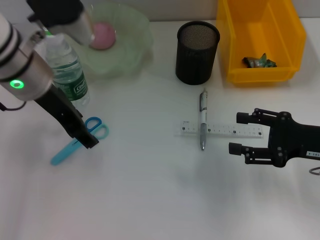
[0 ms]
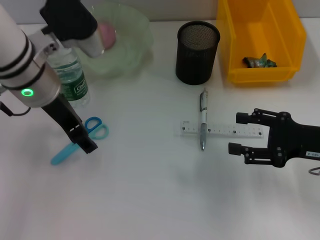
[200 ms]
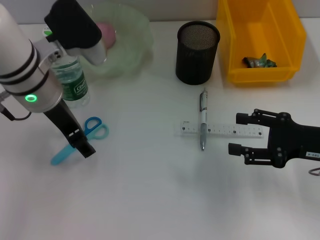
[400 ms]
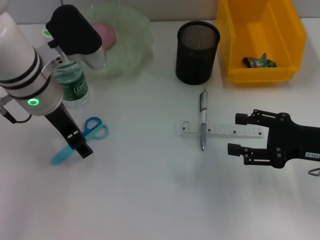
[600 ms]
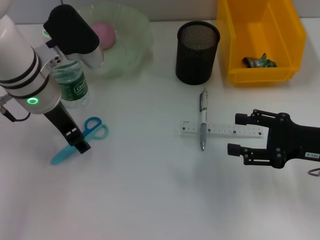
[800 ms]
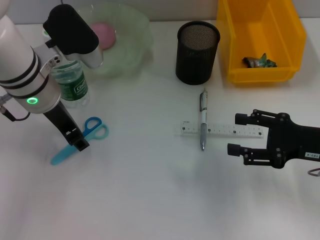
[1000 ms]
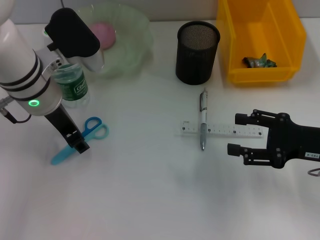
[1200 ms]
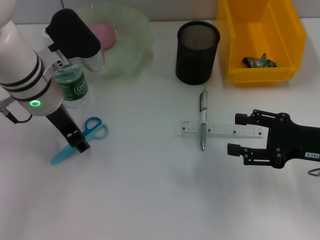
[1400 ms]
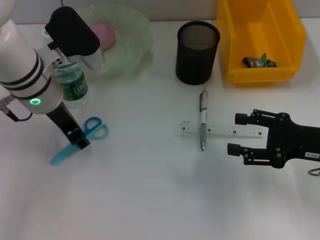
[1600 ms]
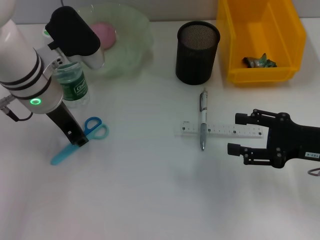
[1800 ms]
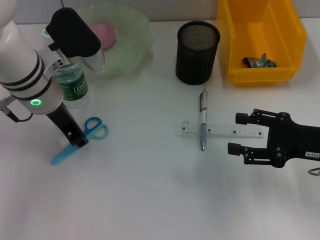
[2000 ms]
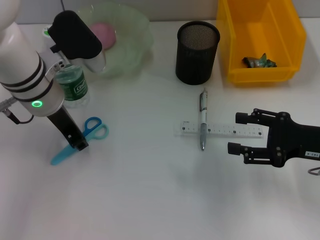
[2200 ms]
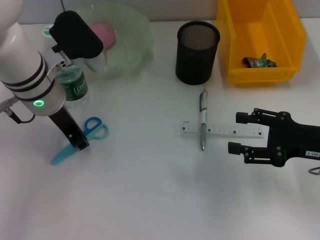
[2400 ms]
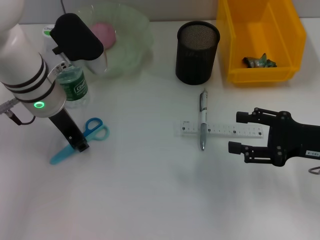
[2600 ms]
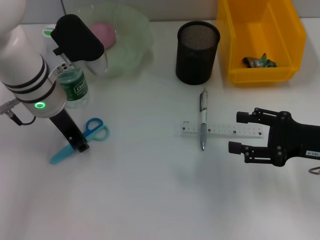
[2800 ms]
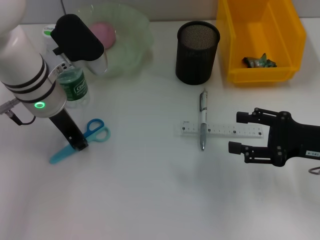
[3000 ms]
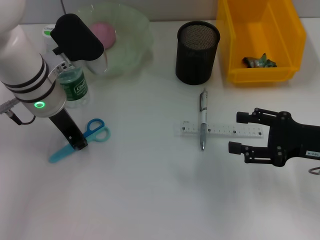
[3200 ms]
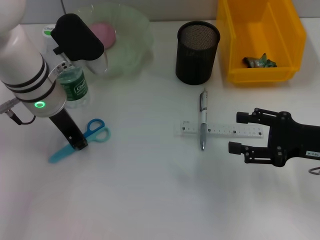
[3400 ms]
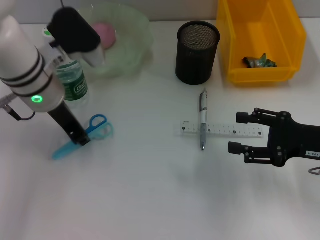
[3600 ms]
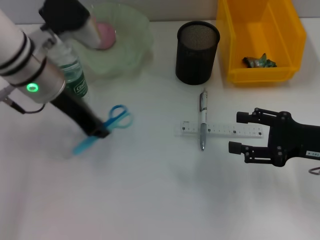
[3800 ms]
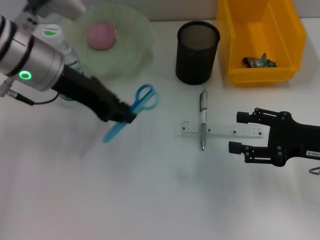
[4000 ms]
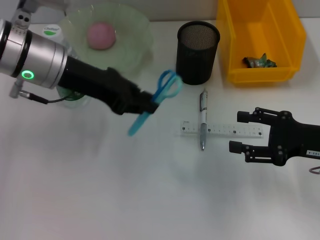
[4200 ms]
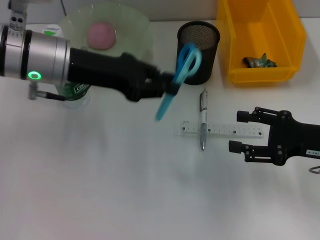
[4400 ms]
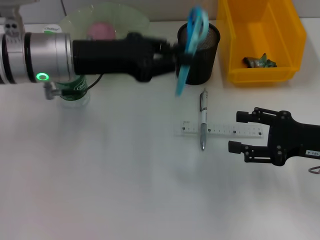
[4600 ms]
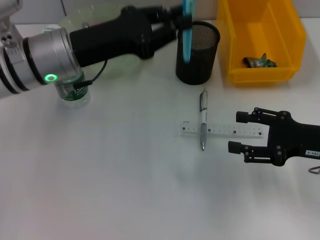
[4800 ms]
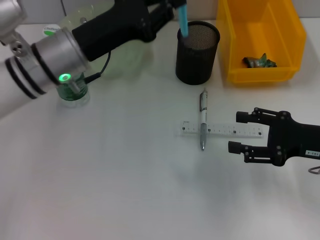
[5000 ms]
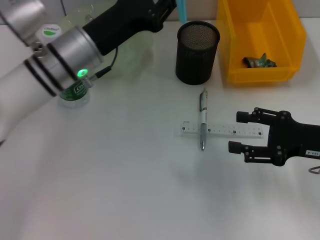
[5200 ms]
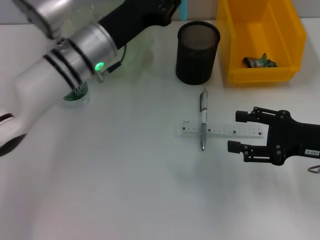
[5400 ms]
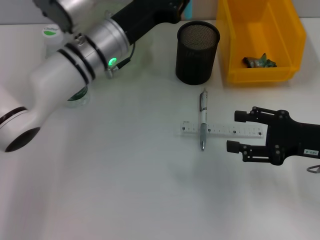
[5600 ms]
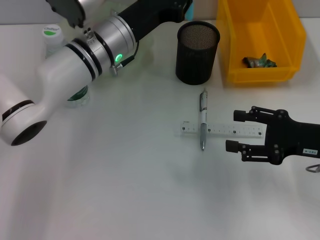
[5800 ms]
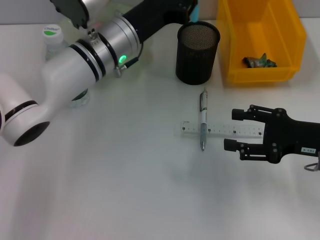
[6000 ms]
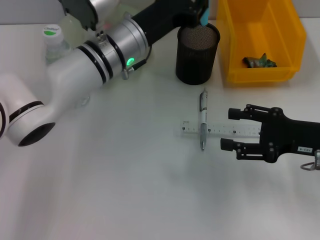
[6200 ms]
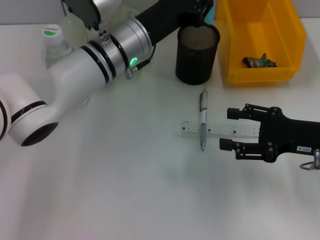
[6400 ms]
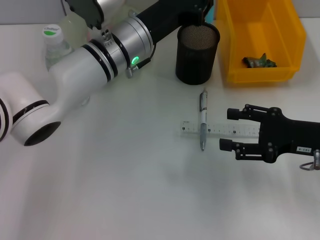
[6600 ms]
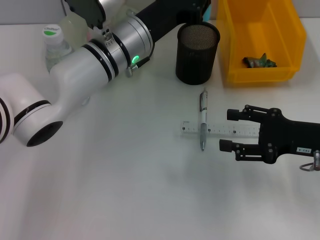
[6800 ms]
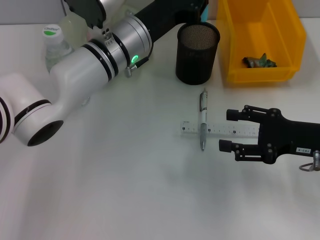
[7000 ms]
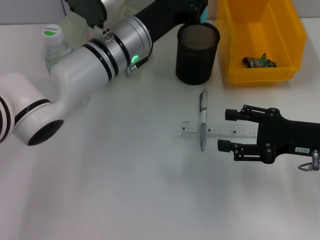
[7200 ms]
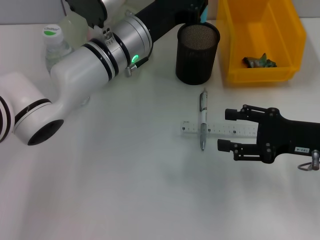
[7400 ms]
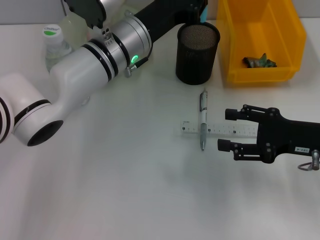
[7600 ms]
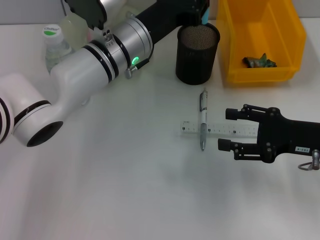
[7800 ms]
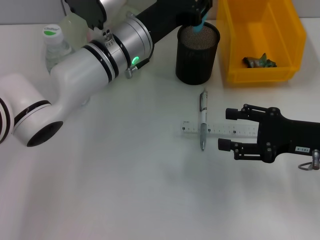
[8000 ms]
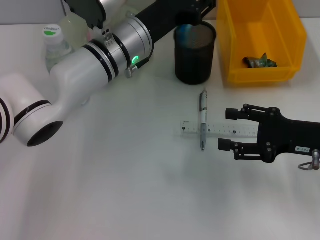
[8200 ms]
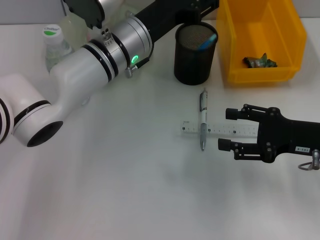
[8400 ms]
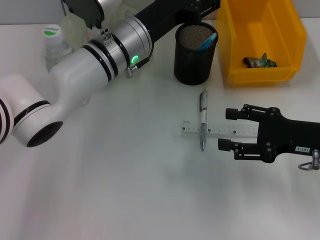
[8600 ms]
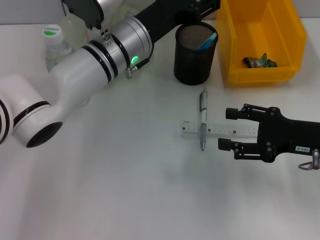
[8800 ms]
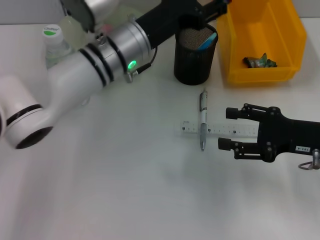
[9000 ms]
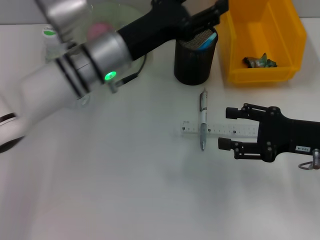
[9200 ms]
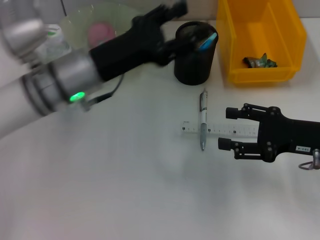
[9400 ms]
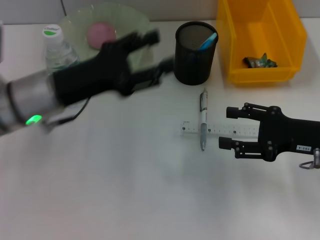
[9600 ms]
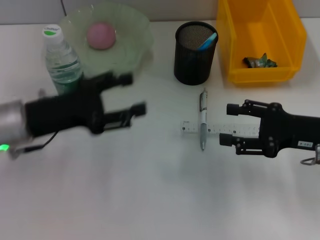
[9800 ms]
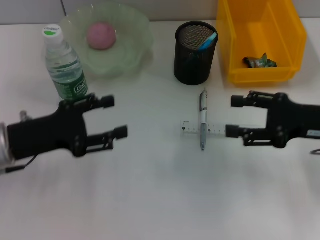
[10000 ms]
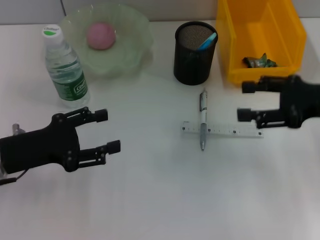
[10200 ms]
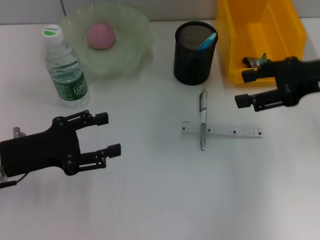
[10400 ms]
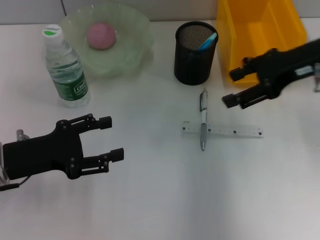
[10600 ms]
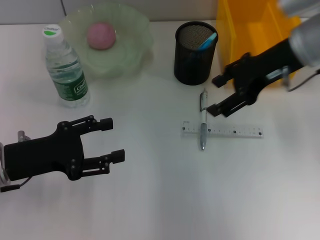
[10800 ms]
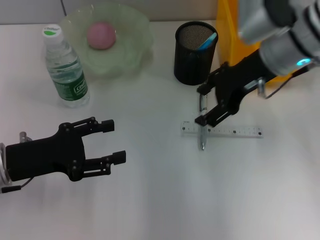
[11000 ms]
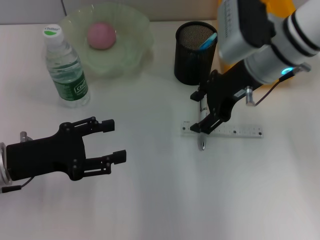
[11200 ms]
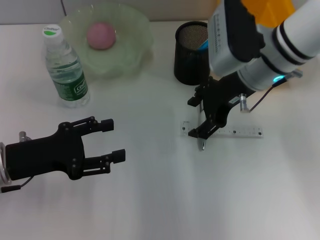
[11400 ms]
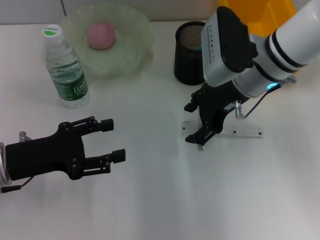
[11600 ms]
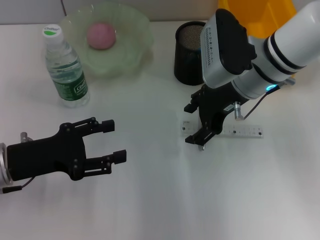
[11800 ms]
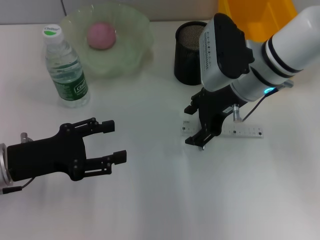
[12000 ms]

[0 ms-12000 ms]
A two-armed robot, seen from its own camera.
Step, 0 ms to 3200 ms: Grab the blue scissors with the left hand.
Step, 3600 ms to 8200 ms: Place the blue scissors into the pen holder with the left hand.
0 ms to 1600 ms: The left gripper shifts roughly 5 cm downward, and closes its fingers.
1600 ms to 3000 ms: Neither gripper changes place.
4400 ms to 6000 ms: The left gripper goes some 10 cm to the right and downward.
6000 ms to 7600 ms: The grippers move only a little.
7600 ms to 9000 ms: The left gripper opens up.
9000 ms to 10400 ms: The right gripper moves upward and forward, approximately 10 cm. Meanwhile the left gripper shifts about 25 cm to the left and backward.
10400 ms to 12000 ms: The right gripper heads to the left, covering roughly 15 cm.

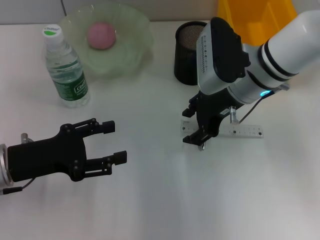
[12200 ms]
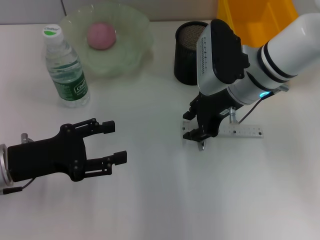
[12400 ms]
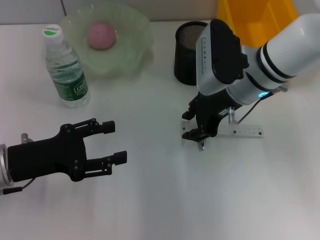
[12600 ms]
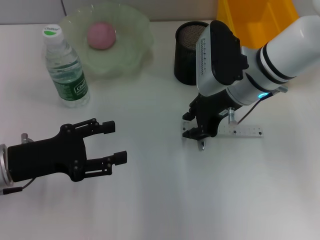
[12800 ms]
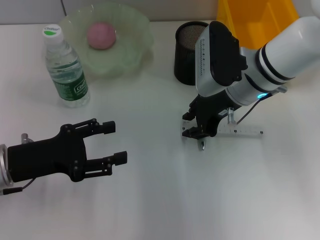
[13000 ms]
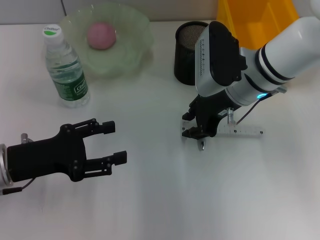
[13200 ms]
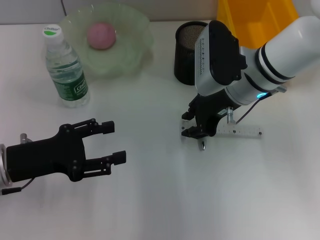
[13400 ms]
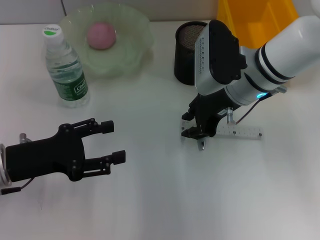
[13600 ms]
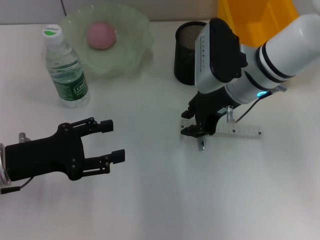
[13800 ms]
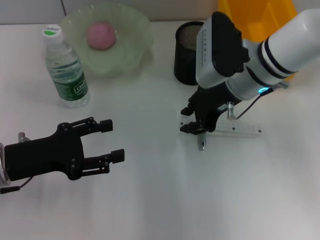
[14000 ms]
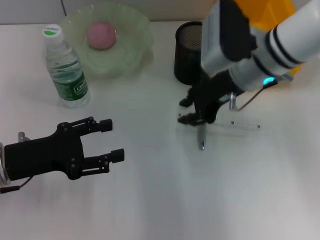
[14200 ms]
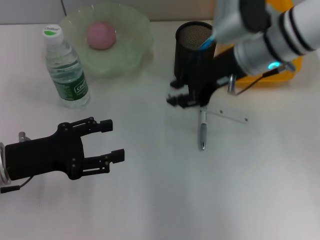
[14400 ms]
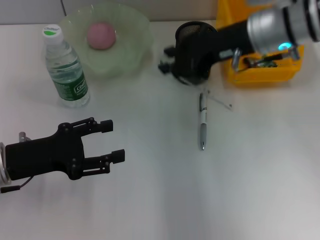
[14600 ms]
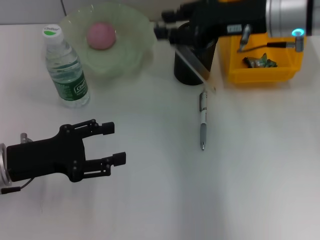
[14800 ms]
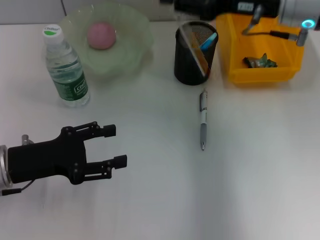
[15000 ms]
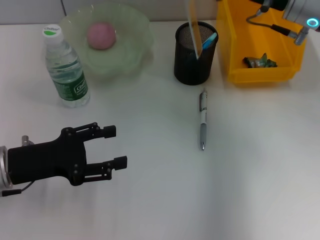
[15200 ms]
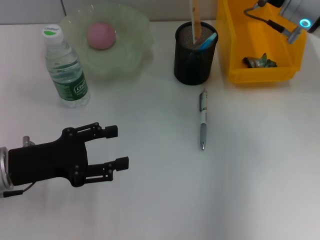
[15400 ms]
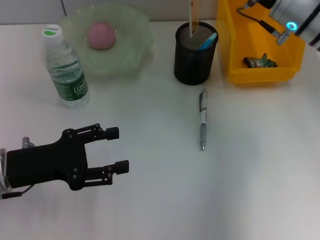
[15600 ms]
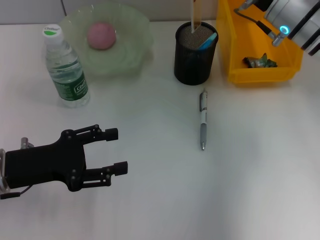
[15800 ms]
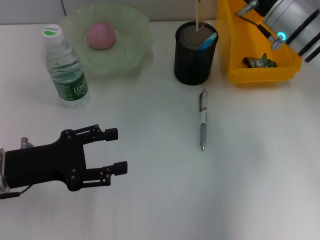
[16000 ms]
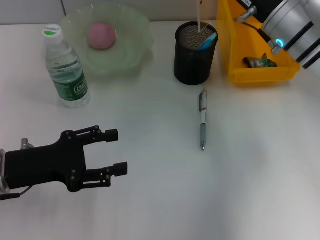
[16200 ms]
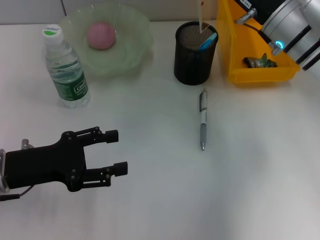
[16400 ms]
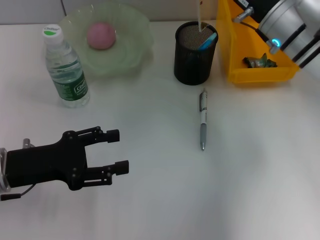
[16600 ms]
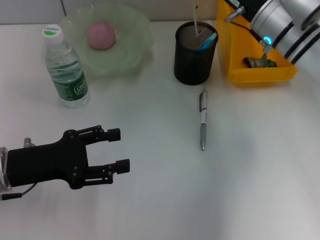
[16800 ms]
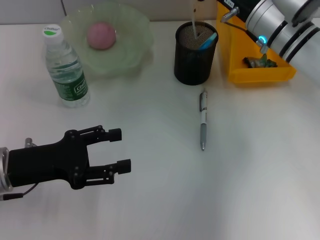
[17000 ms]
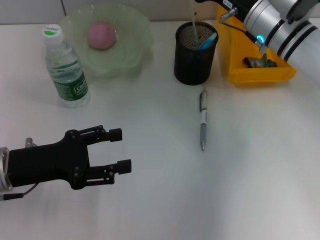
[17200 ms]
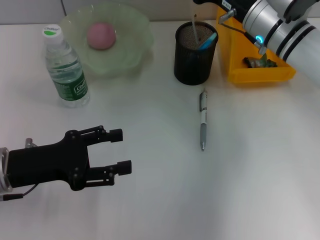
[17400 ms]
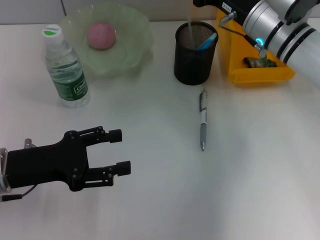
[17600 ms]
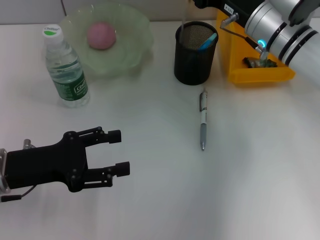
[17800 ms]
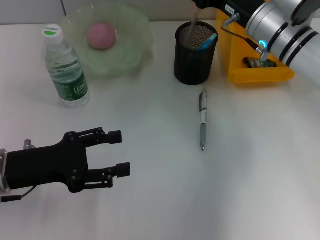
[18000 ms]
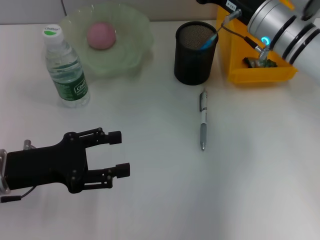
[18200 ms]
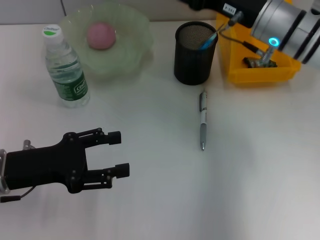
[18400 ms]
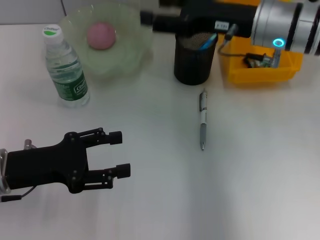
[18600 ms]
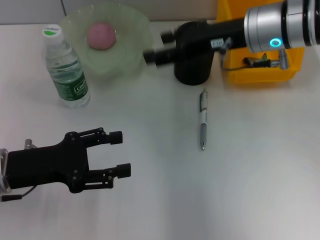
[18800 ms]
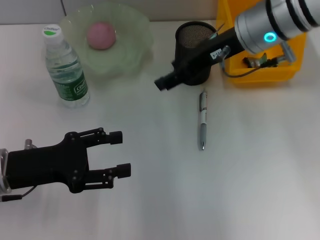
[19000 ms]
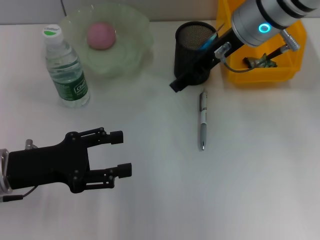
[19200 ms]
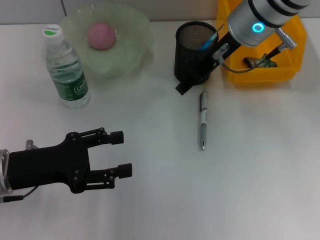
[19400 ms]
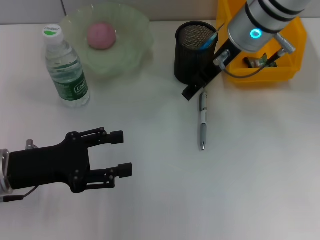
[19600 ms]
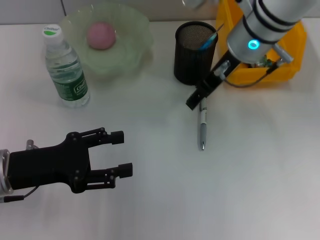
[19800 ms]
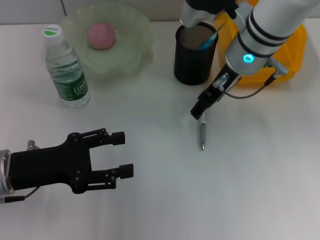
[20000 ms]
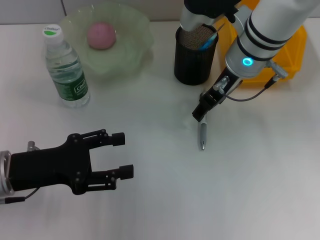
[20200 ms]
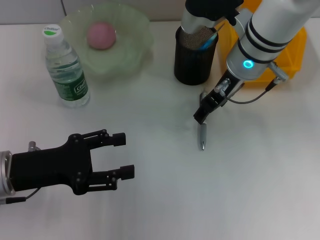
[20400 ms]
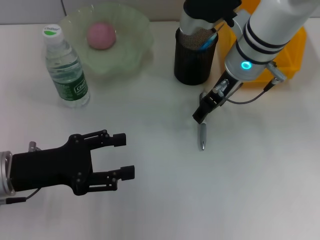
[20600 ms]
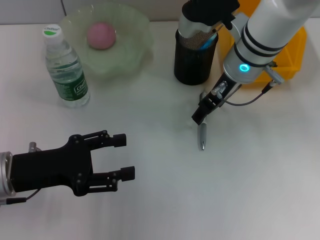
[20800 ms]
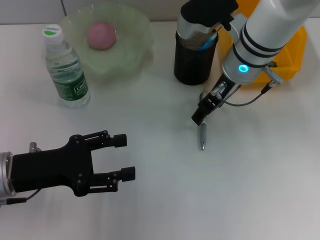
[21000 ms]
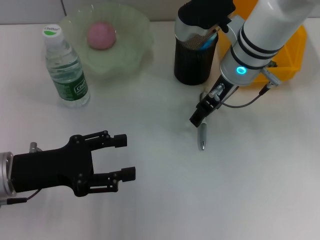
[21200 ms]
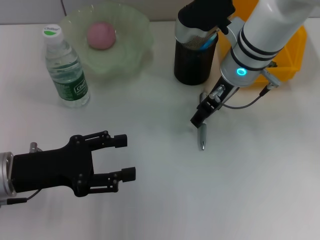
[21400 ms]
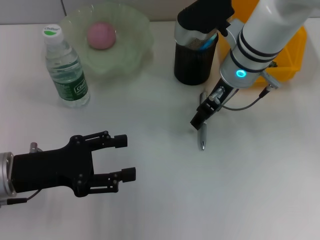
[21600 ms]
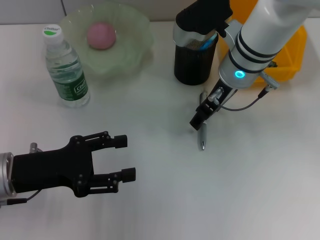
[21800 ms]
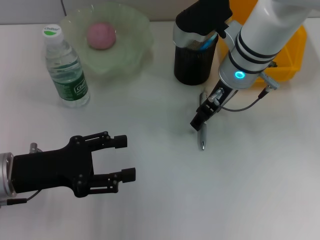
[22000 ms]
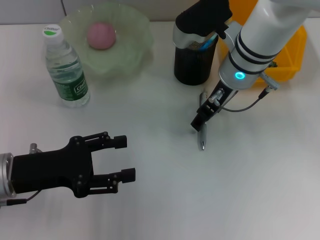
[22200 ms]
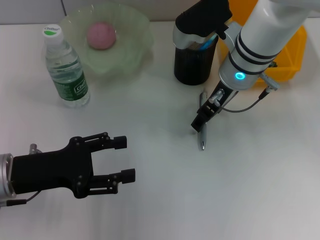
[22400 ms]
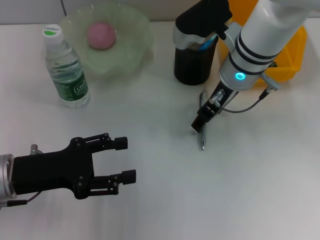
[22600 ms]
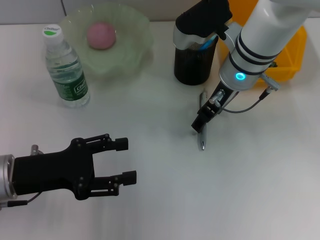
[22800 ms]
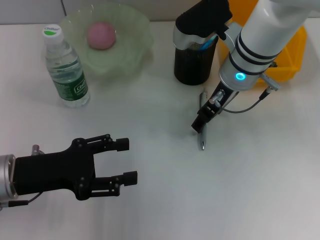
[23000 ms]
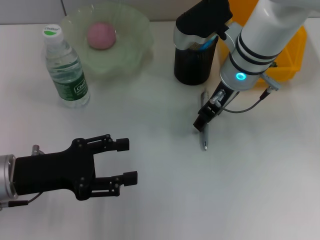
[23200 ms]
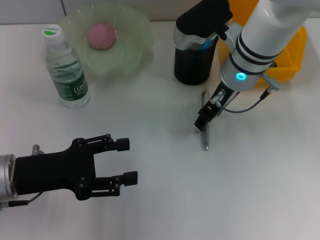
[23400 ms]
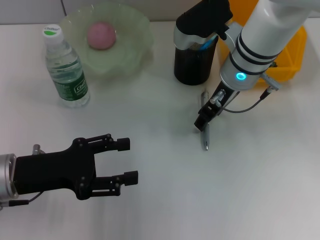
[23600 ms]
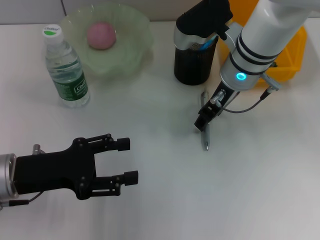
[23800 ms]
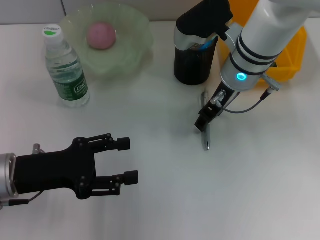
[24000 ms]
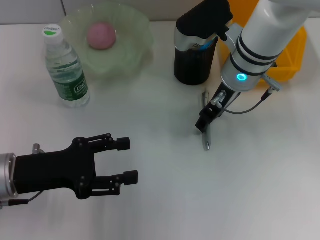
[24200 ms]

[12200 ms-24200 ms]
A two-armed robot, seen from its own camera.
Step, 13800 ms to 18000 ms: Place the ruler into the pen holder with the right hand.
12200 ms to 13800 ms: The right gripper closes its fingers.
13800 ms to 15200 ms: The right gripper travels to the right and upward by roughly 10 cm.
15200 ms to 16600 ms: The right gripper moves downward, about 5 cm.
16600 ms to 18200 ms: The right gripper opens its fingers.
18200 ms to 19800 ms: The right gripper shifts approximately 10 cm upward and to the left.
19800 ms to 21200 ms: The grippers move only a little.
21200 ms to 24200 ms: The two grippers keep their place.
